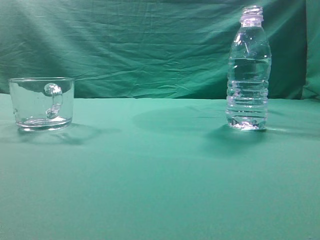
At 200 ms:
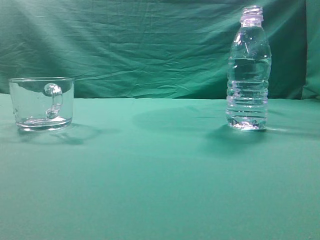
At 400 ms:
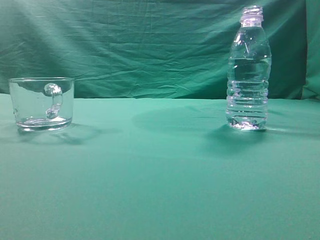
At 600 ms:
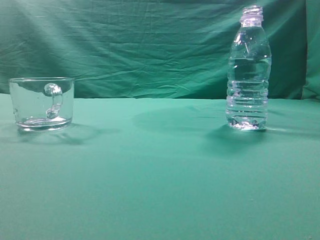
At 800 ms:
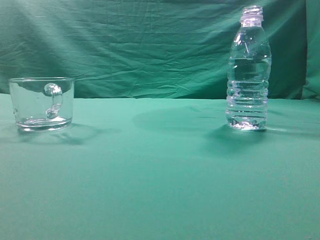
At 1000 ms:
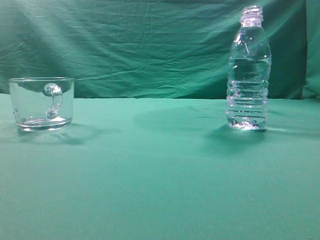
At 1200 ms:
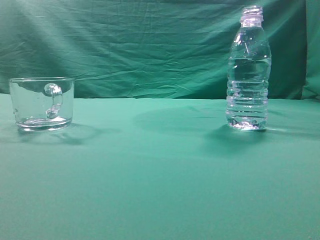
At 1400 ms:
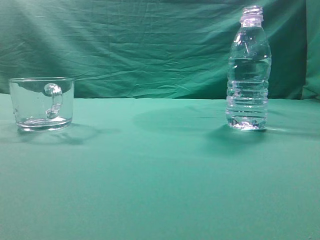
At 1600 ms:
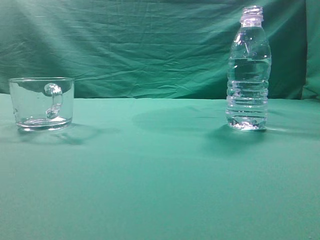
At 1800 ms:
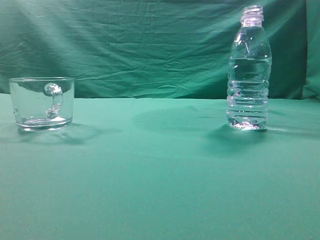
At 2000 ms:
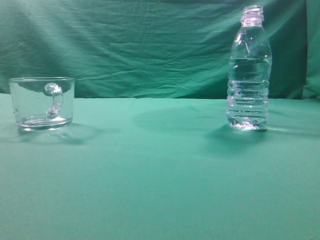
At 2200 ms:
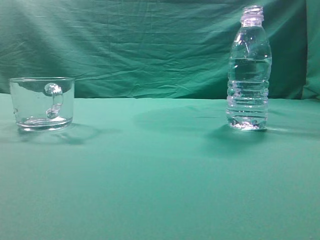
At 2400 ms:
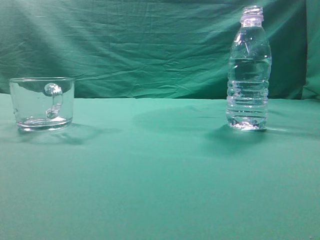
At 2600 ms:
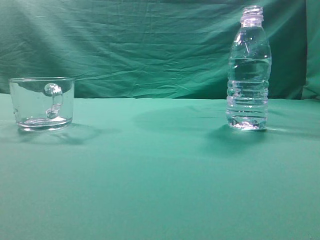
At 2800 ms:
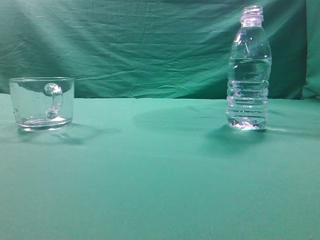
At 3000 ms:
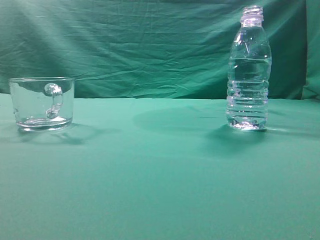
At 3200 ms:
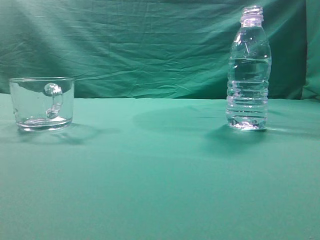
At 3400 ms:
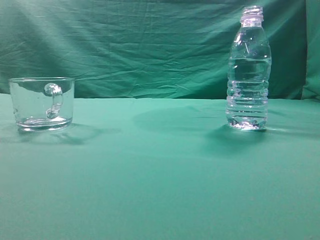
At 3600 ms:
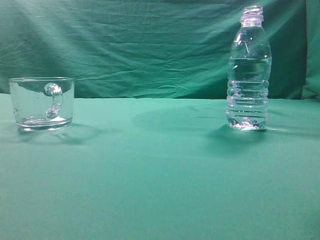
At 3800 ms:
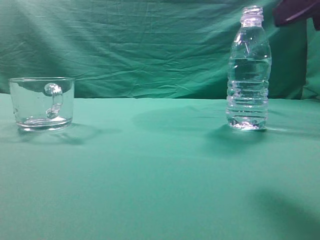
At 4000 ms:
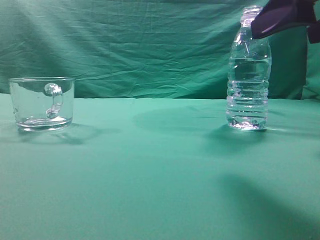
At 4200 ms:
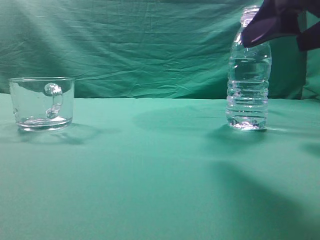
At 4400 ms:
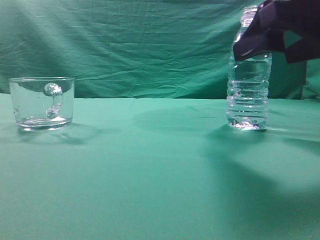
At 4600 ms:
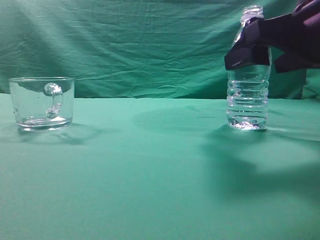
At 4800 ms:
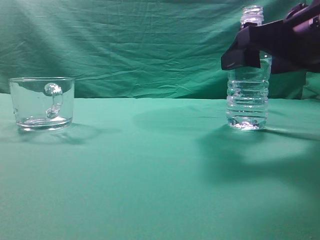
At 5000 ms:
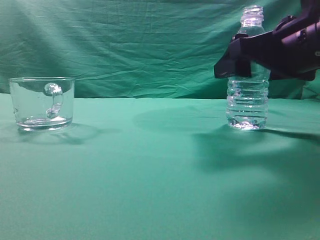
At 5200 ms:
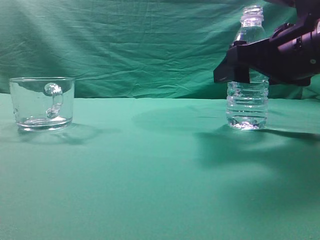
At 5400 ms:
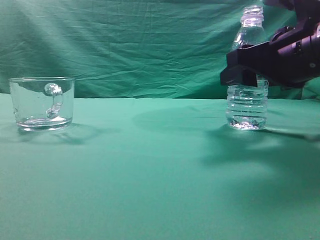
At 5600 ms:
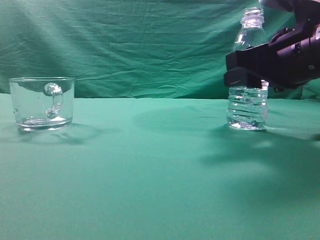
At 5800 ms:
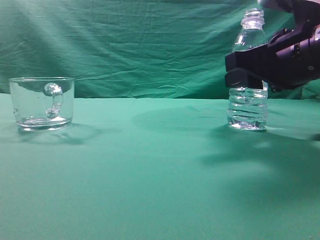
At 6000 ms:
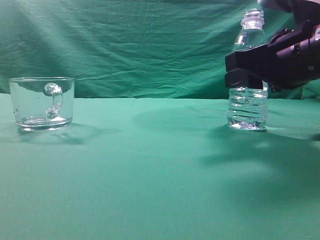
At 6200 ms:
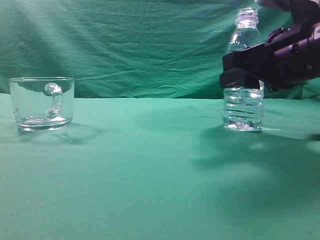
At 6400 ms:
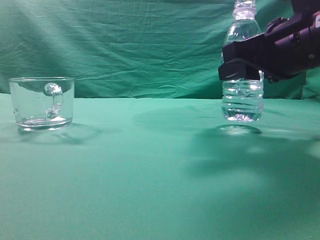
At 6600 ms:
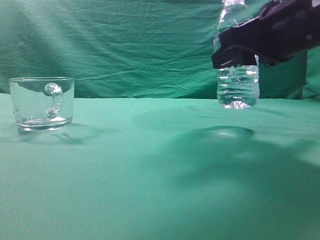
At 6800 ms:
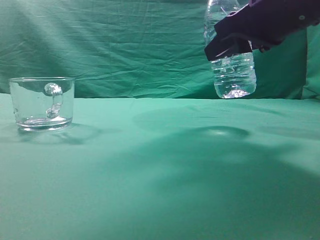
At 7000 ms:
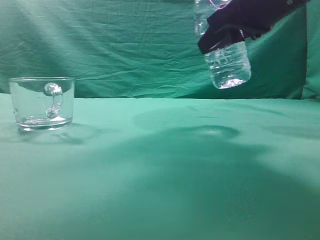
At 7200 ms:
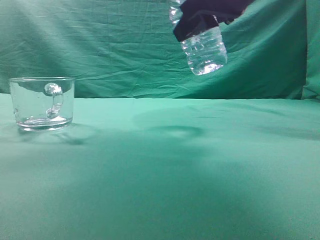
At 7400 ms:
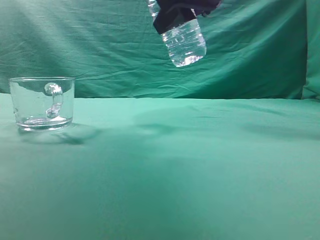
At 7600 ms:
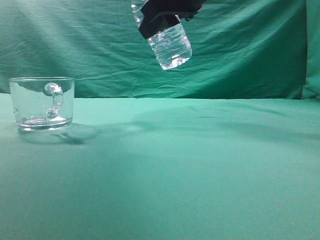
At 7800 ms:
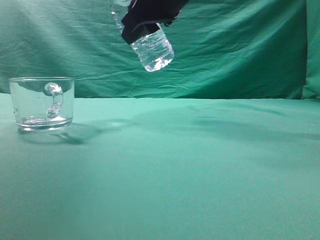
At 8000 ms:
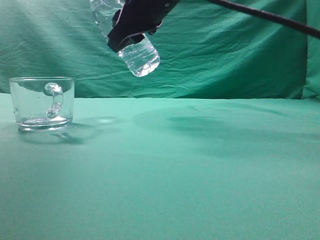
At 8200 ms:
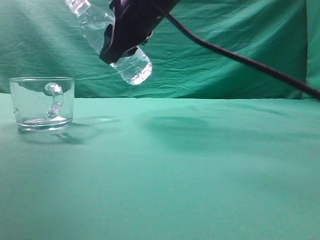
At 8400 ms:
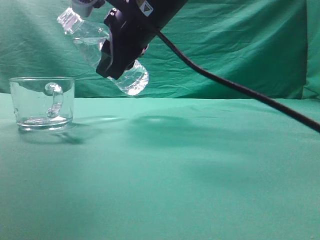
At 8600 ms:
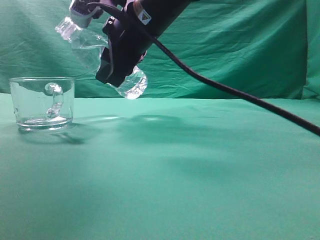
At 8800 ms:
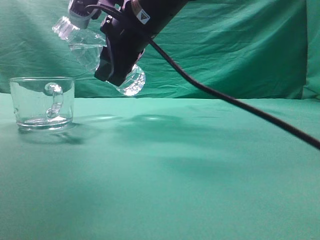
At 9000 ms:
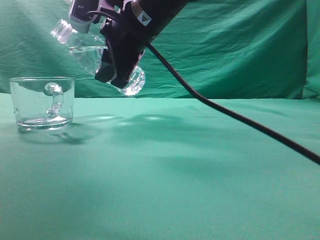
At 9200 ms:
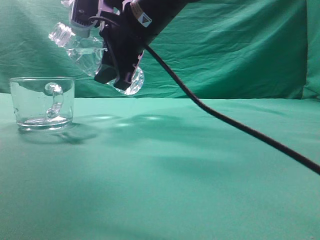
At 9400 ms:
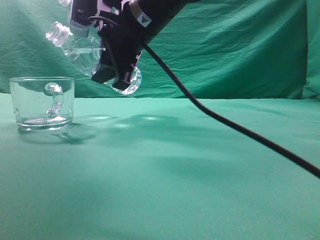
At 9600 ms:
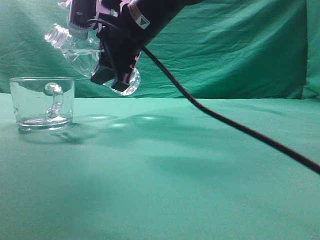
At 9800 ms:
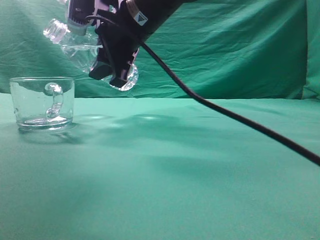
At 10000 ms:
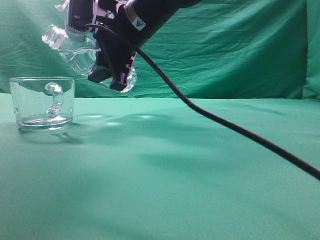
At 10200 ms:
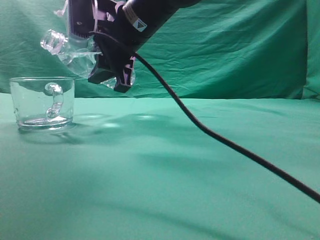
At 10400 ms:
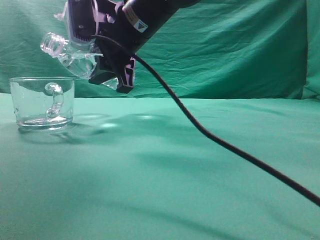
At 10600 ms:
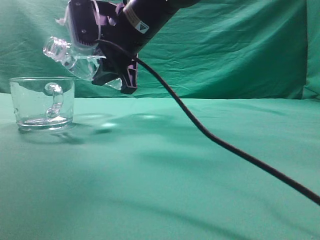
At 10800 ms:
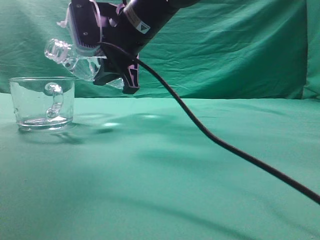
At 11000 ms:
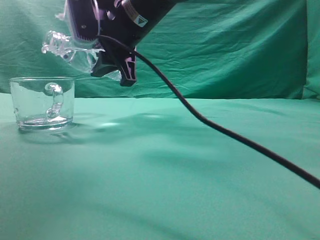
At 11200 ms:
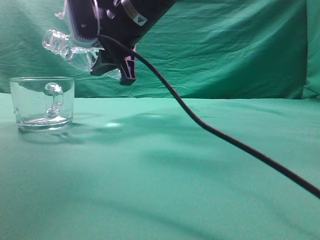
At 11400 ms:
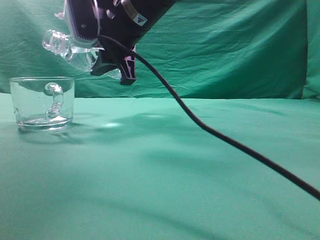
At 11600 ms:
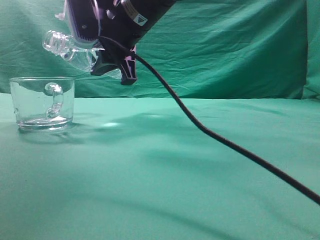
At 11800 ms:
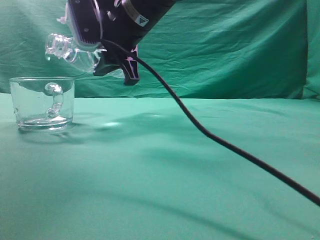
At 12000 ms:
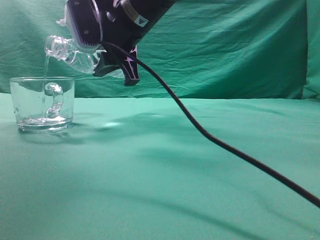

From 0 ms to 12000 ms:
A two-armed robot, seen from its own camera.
Task of the whole recording: pick up the water bottle and pour the water in it into the glass.
Step, from 0 ms to 6800 ms: Grasp the mineral water bottle.
From 3000 ms to 4400 ms: The right gripper is displaced forward, to the left and downward by some 15 cm, and opens.
From 4400 ms to 6000 ms: The right gripper is displaced forward by about 5 cm, and closes.
From 6000 ms to 7600 ms: The right gripper moves upward and to the left, some 15 cm.
From 7600 ms to 9000 ms: The right gripper goes about 10 cm to the left and downward.
From 9000 ms to 10400 ms: The grippers move only a little.
From 10400 ms to 12000 ms: The grippers move only a little.

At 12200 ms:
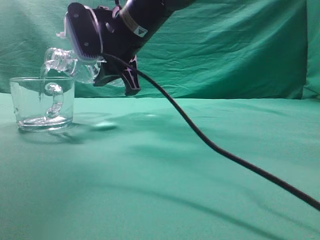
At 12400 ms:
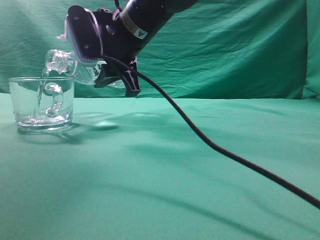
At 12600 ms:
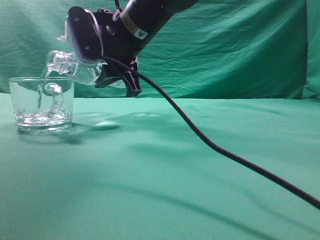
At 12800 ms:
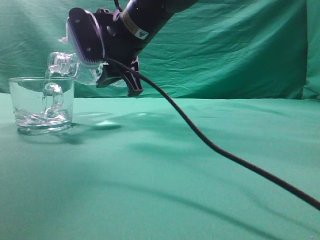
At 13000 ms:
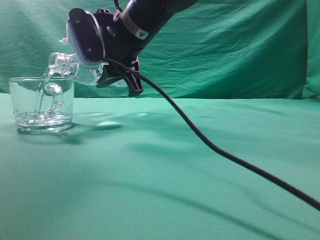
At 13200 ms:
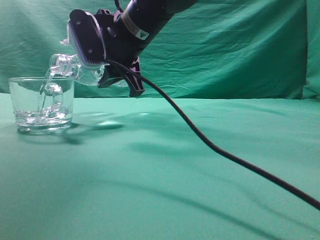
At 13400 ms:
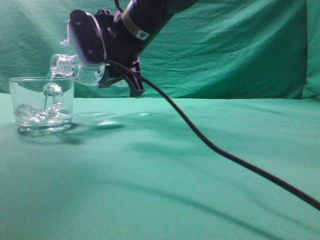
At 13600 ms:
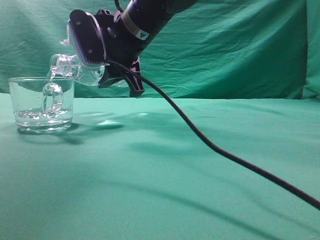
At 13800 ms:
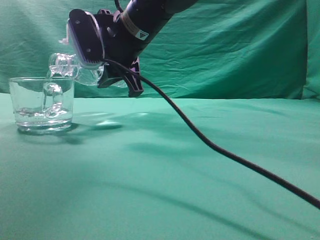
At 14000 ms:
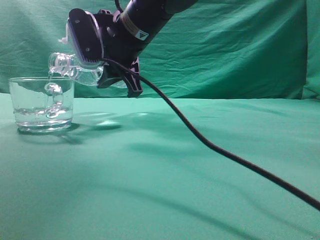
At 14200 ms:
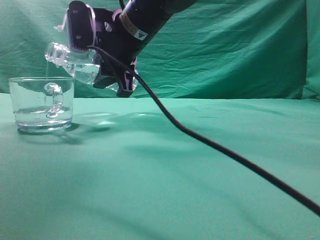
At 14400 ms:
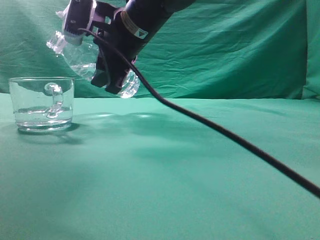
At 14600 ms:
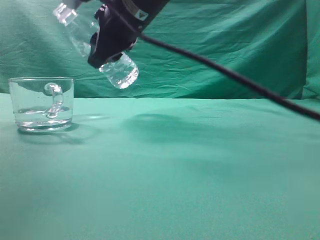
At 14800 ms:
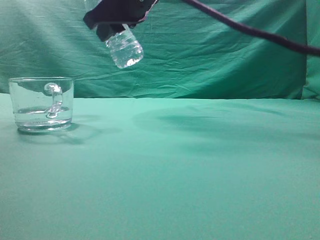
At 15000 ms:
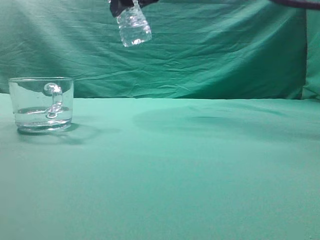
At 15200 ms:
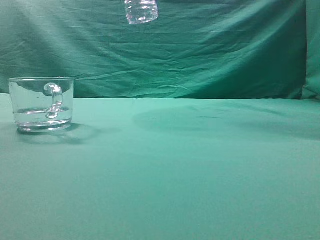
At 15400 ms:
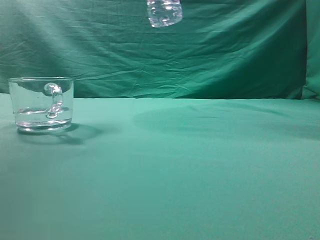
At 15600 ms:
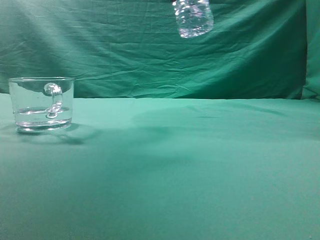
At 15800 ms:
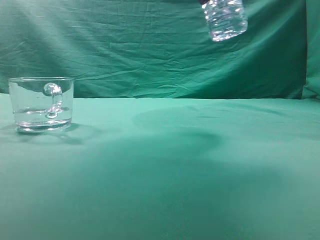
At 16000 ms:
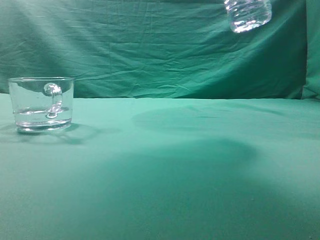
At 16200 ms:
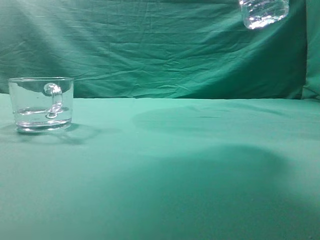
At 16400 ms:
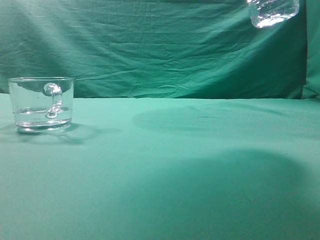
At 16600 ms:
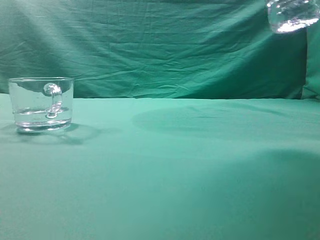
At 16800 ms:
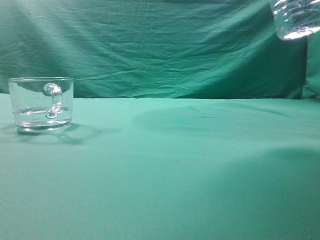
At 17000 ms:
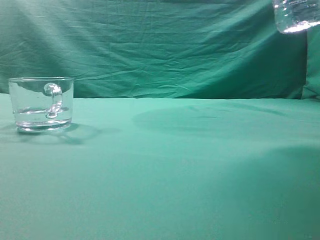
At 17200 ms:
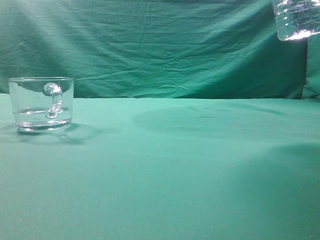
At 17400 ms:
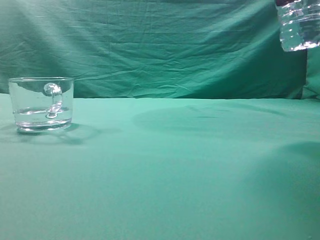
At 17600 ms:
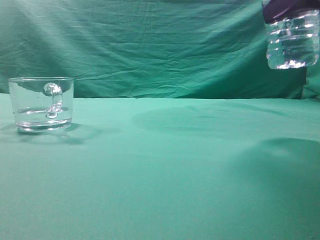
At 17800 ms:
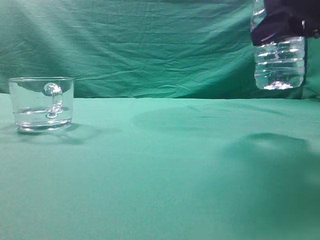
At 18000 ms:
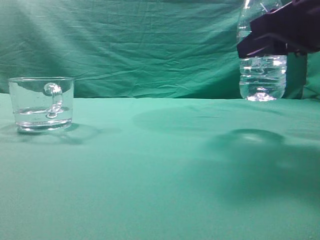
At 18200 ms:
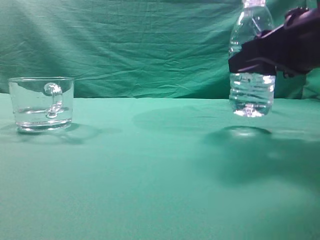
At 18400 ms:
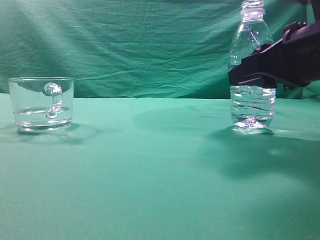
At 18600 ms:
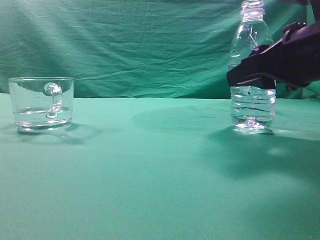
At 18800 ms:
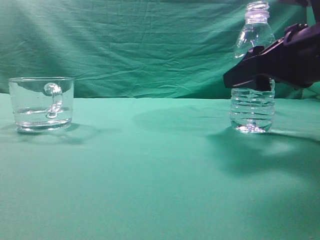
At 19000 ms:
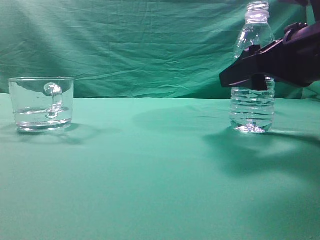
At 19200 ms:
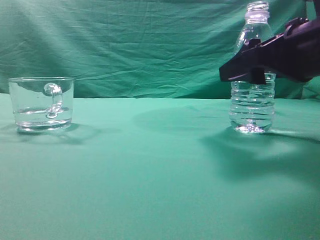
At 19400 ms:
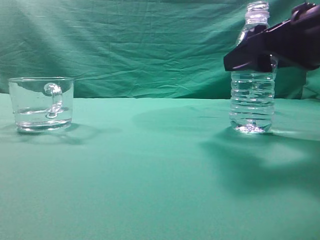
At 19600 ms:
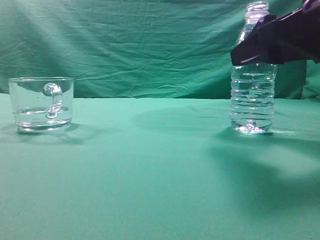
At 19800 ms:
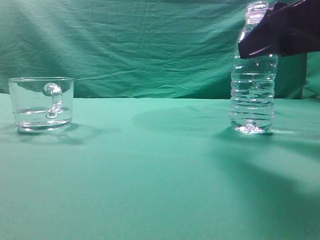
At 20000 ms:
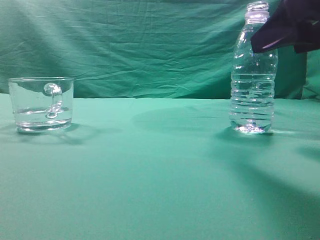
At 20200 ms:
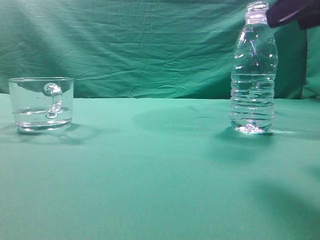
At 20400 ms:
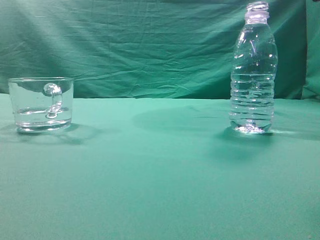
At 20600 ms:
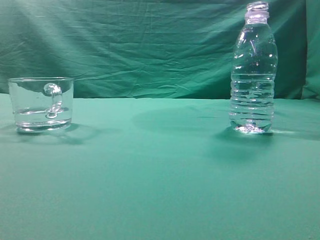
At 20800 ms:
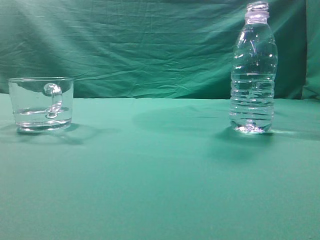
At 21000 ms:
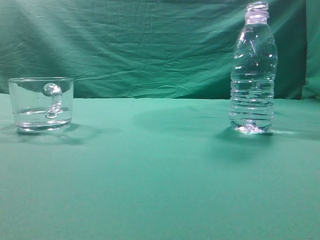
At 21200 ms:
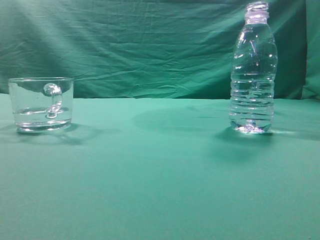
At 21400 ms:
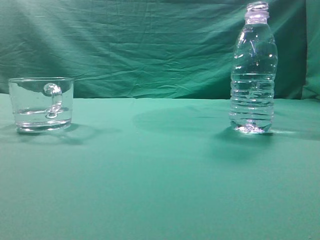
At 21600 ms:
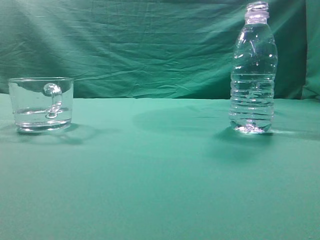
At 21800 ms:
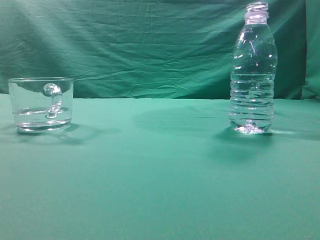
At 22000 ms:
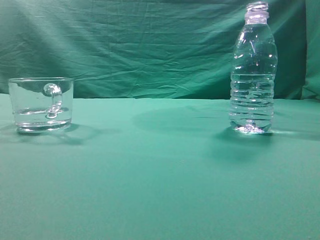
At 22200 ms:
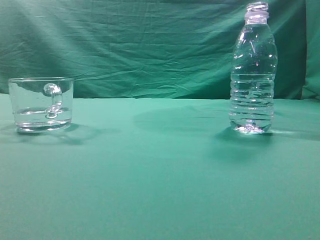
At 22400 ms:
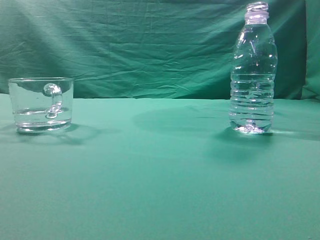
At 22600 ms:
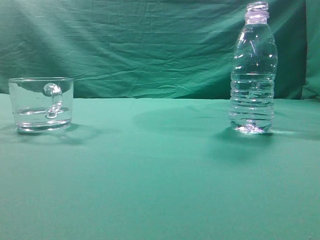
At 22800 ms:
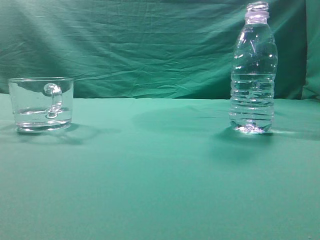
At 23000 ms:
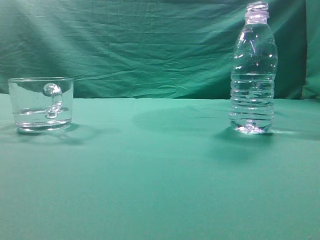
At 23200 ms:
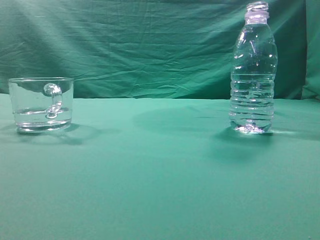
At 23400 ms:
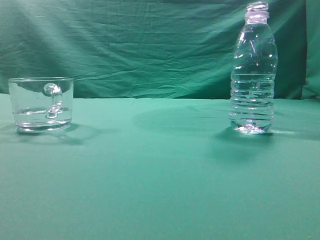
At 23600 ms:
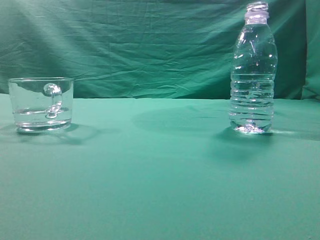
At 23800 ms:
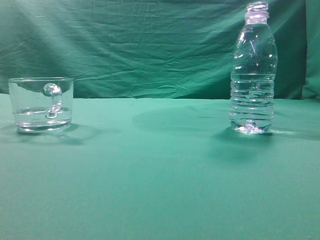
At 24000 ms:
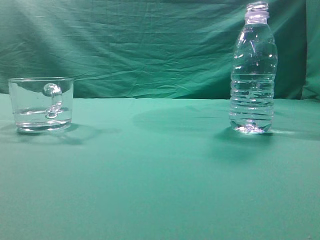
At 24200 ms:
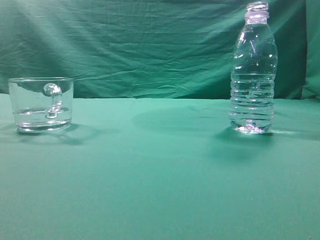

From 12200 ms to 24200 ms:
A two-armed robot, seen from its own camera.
Task of the whole recording: pick up the water bottle and pour the water in it into the glass.
Step, from 12200 ms to 14600 ms: Pour water into the teacup.
From 12200 ms to 13800 ms: Both grippers stay about where they are.
From 13800 ms to 15200 ms: The right gripper is displaced upward by some 15 cm.
From 15200 ms to 16600 ms: The right gripper goes about 20 cm to the right and backward.
From 16600 ms to 18200 ms: The right gripper heads downward, covering approximately 15 cm.
From 18200 ms to 19800 ms: The right gripper opens its fingers.
From 19800 ms to 21200 ms: The right gripper moves backward, upward and to the right, approximately 15 cm, and closes its fingers.
